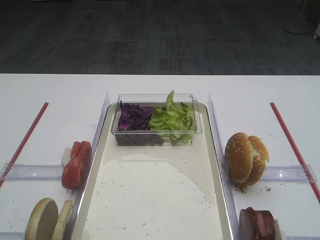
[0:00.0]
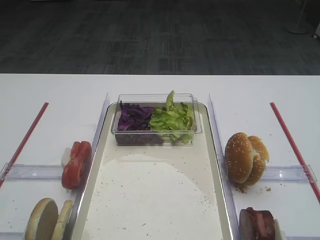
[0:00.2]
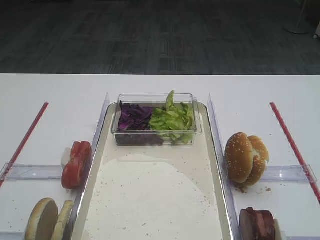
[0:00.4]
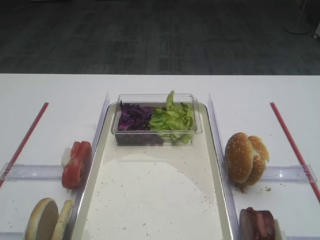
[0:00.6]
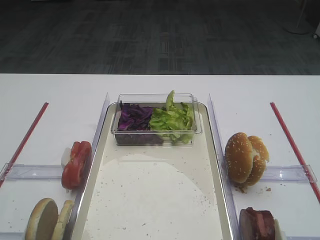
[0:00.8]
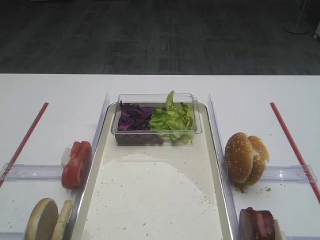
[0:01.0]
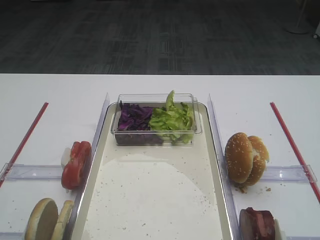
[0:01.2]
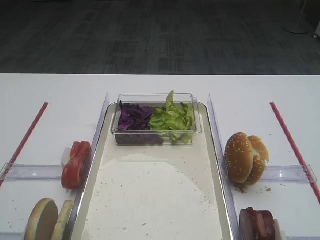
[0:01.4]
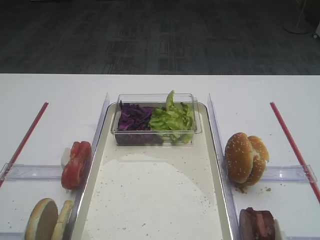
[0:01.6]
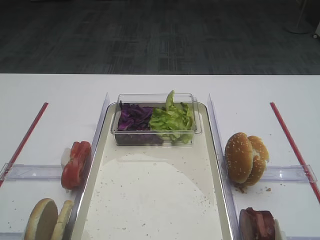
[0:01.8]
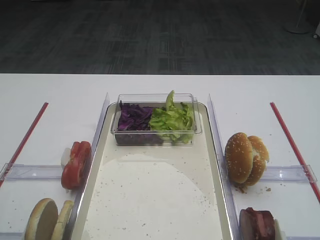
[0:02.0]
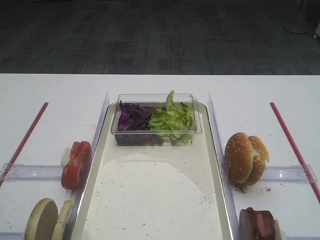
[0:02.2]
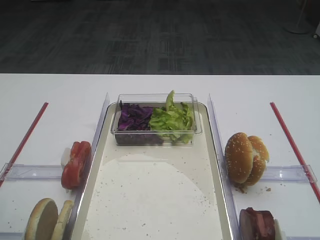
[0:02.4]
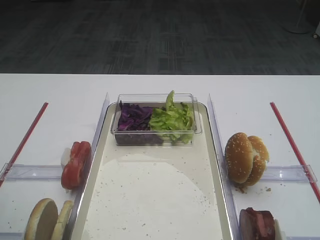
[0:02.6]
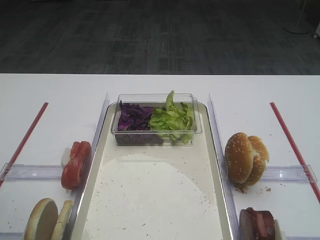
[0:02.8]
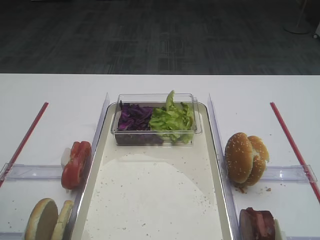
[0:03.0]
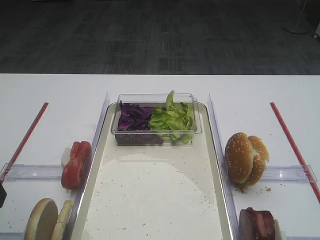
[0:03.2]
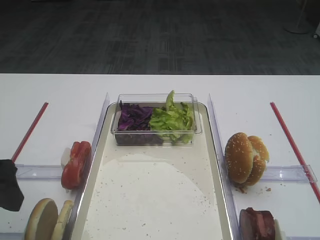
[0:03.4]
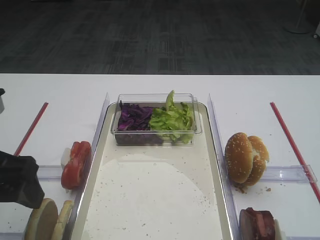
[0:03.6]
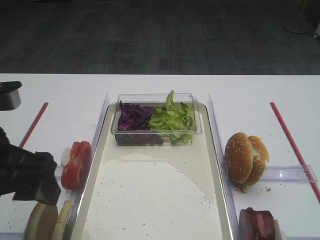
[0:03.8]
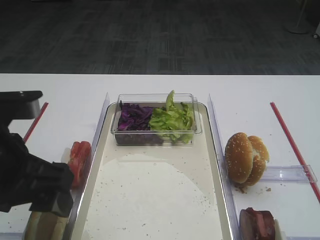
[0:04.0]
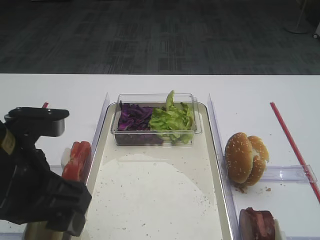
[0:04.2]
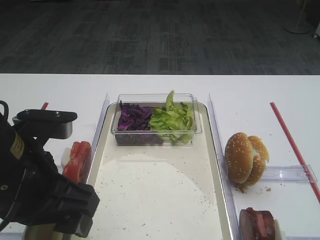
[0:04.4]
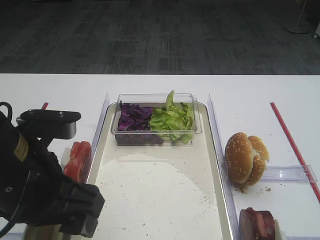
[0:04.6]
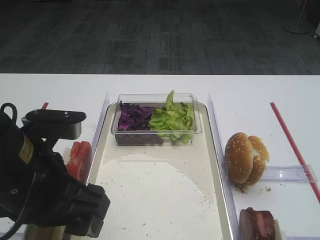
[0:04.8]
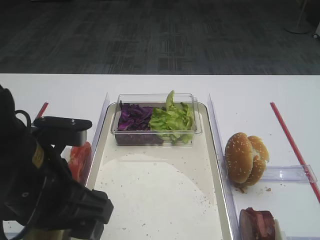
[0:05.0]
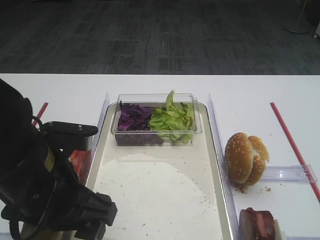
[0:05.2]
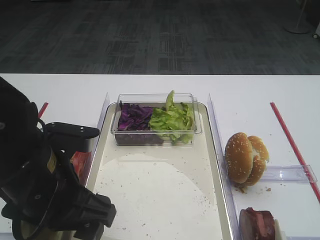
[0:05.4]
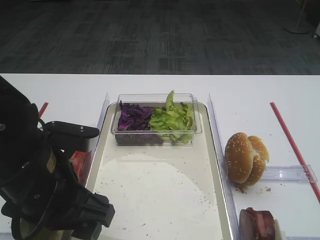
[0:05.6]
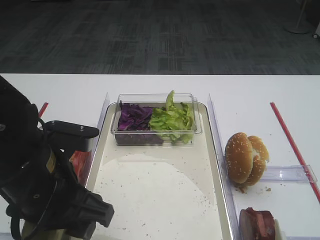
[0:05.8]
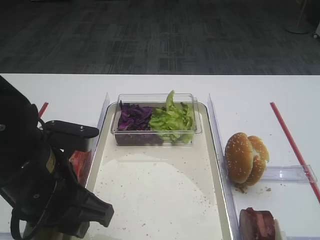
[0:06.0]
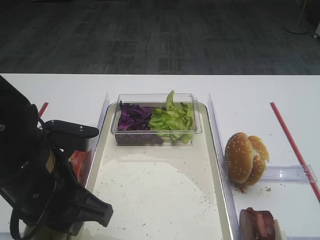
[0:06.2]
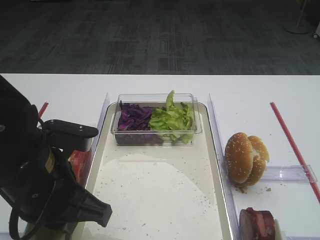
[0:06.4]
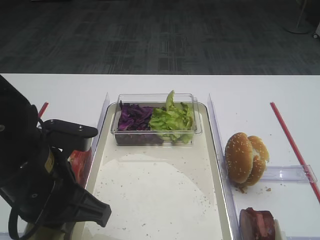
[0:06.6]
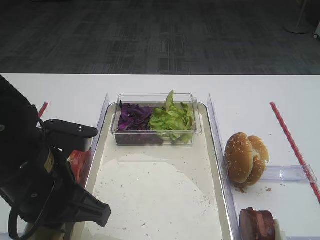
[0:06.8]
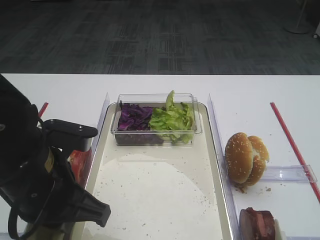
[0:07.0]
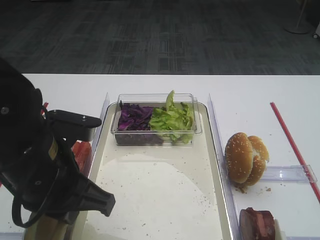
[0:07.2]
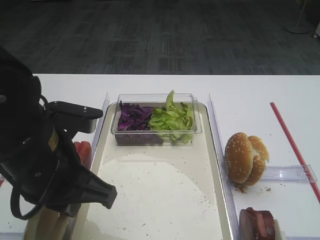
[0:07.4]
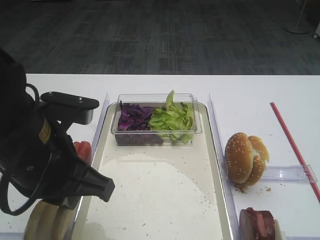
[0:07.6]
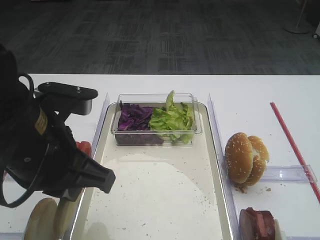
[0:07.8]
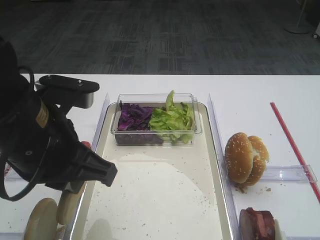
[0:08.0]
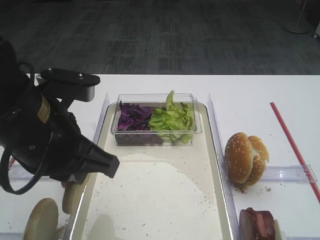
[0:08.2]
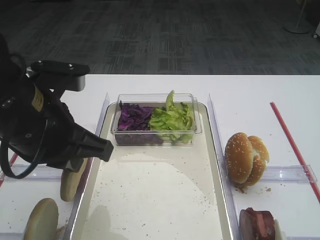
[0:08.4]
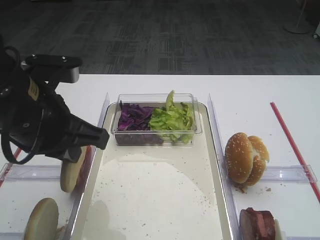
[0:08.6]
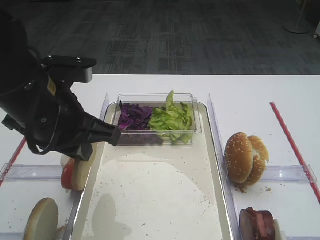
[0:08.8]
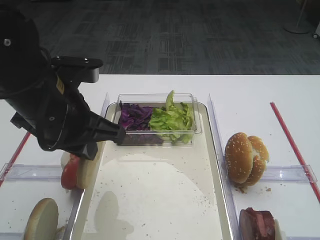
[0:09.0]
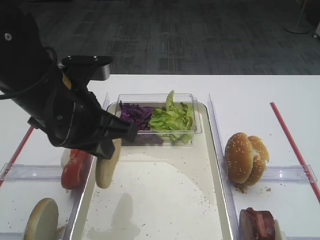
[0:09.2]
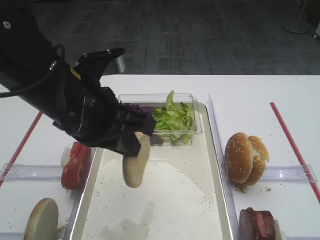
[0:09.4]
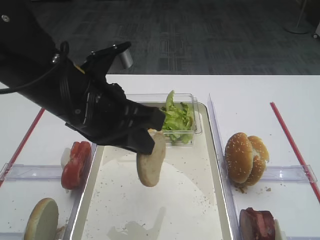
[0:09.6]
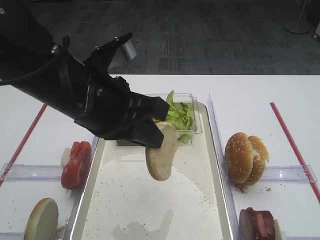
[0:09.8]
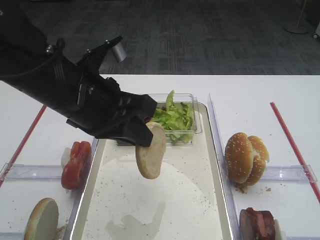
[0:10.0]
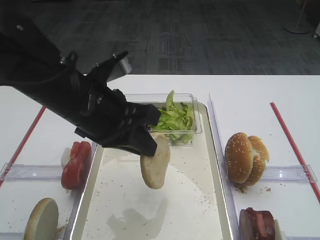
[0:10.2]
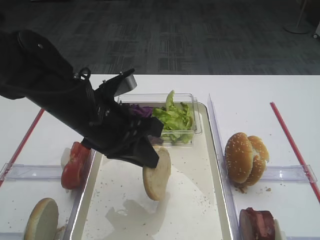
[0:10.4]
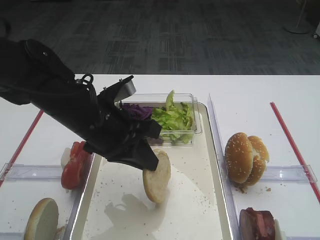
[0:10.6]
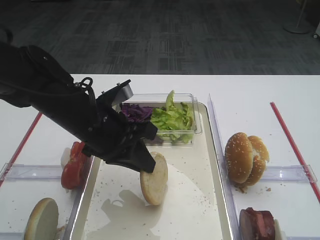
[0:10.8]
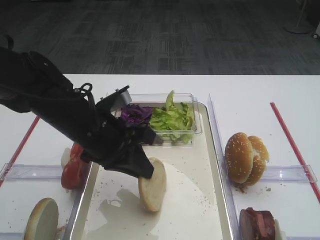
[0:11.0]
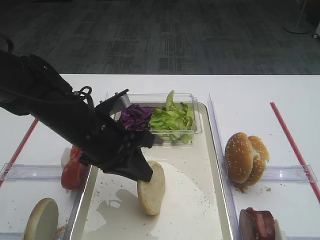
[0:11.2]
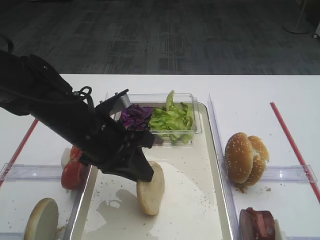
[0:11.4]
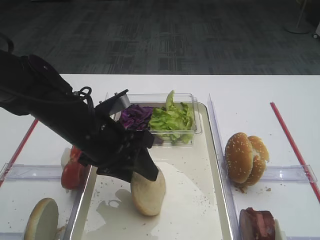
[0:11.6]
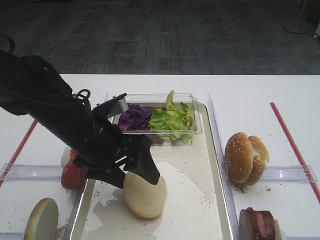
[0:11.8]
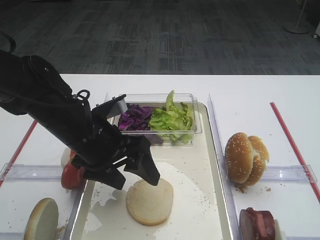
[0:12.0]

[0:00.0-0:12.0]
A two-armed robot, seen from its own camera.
Step, 0:00.0 to 0:07.8: Pick up the bread slice with the left gripper.
0:03.0 to 0:04.4: The left gripper goes some 15 cm to the right.
0:04.4 to 0:06.0: The left gripper closes.
0:06.0 to 0:07.6: The left gripper closes.
0:07.6 to 0:09.0: The left gripper goes some 5 cm forward.
0:09.0 to 0:10.4: The left gripper ends up approximately 5 cm from where it was.
0:10.4 to 0:12.0: The left gripper opens.

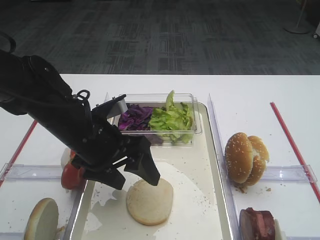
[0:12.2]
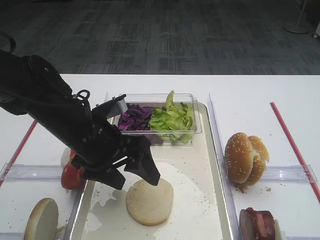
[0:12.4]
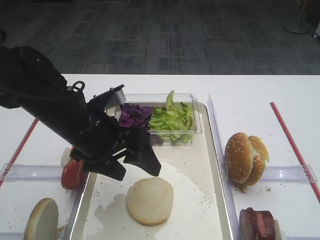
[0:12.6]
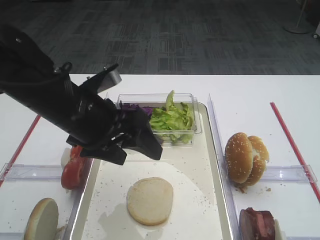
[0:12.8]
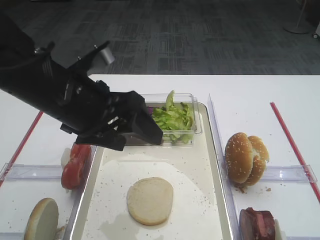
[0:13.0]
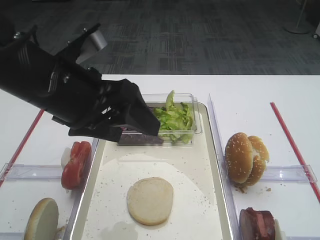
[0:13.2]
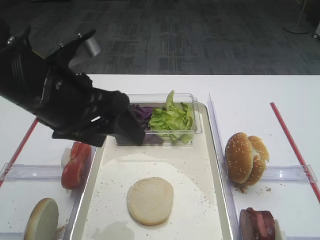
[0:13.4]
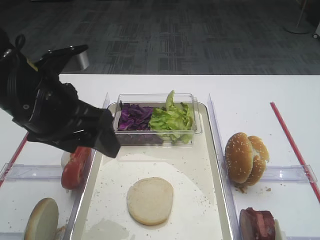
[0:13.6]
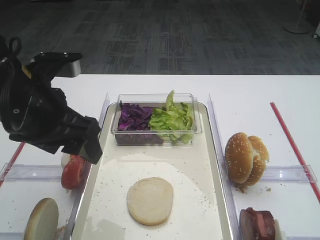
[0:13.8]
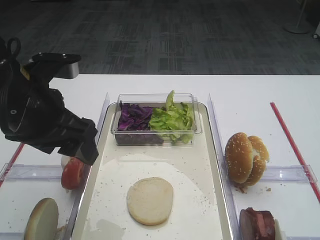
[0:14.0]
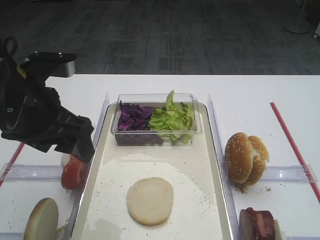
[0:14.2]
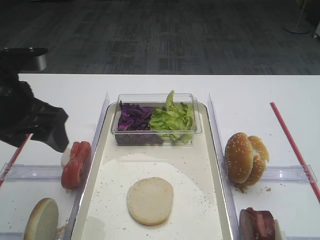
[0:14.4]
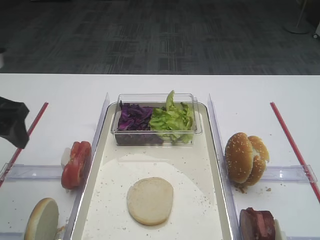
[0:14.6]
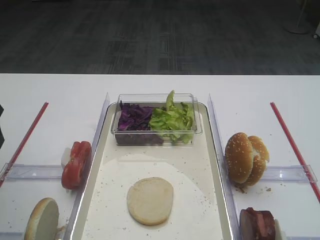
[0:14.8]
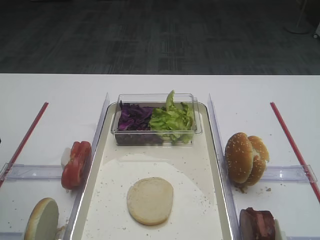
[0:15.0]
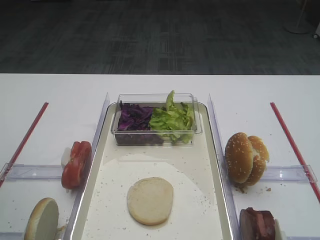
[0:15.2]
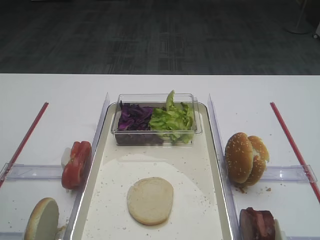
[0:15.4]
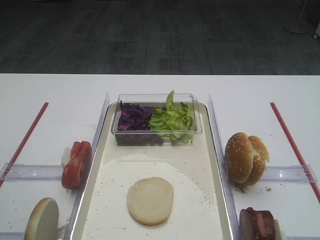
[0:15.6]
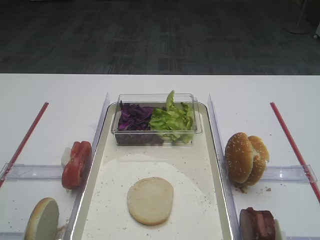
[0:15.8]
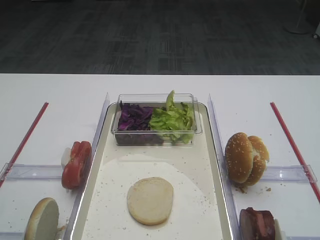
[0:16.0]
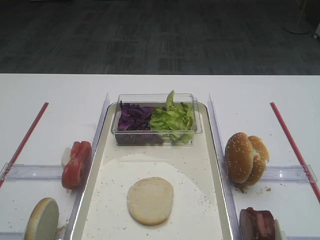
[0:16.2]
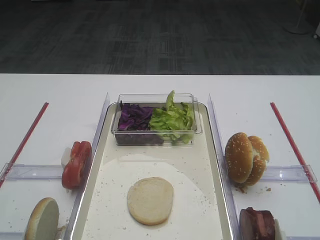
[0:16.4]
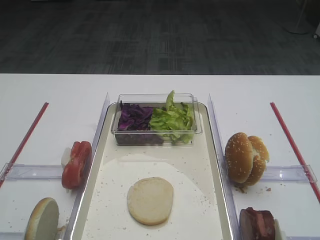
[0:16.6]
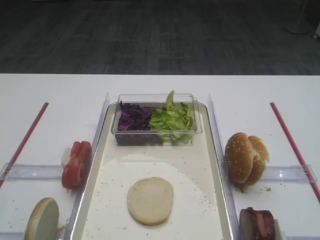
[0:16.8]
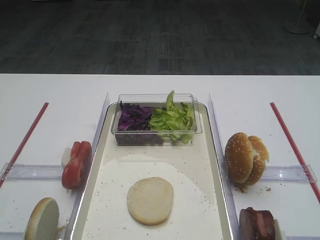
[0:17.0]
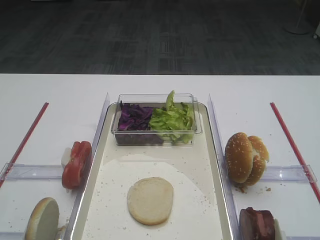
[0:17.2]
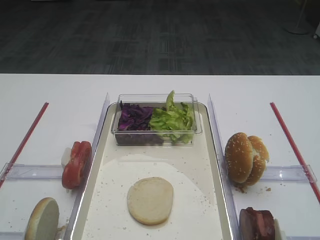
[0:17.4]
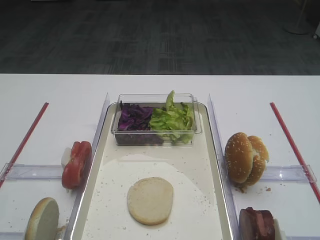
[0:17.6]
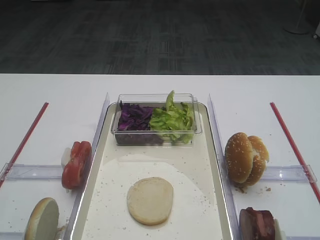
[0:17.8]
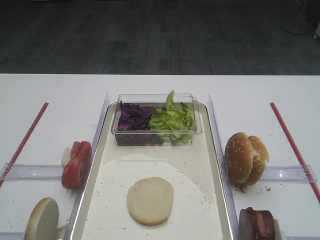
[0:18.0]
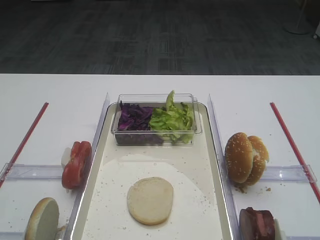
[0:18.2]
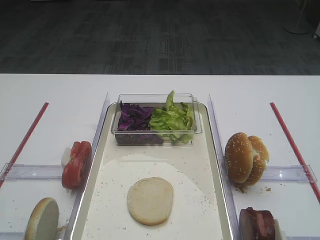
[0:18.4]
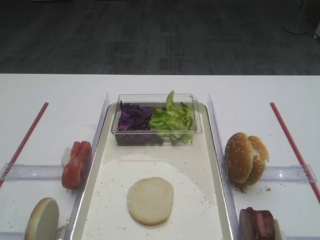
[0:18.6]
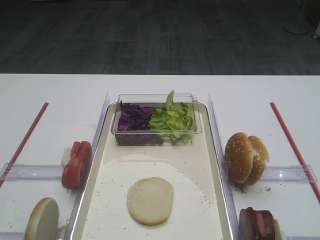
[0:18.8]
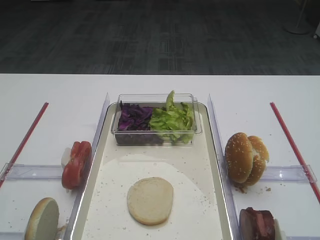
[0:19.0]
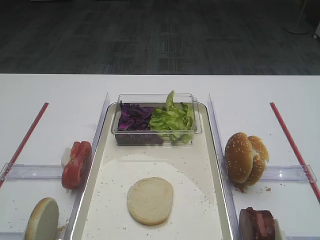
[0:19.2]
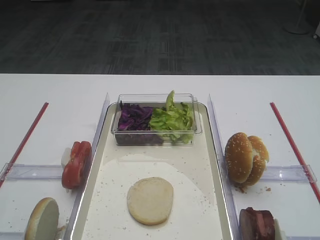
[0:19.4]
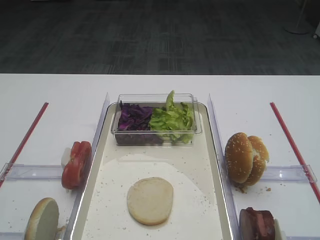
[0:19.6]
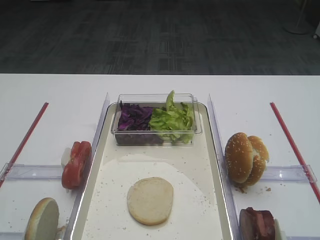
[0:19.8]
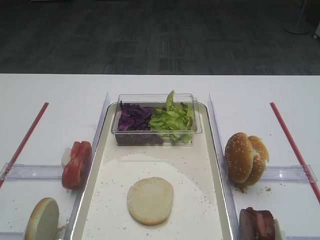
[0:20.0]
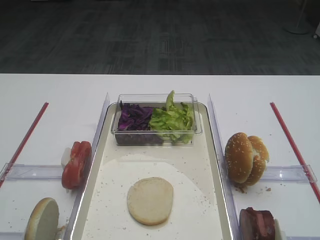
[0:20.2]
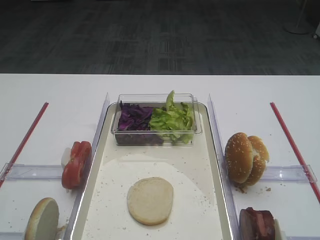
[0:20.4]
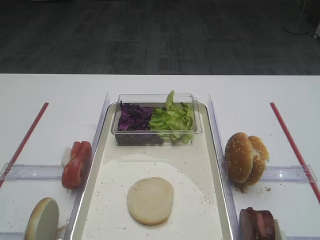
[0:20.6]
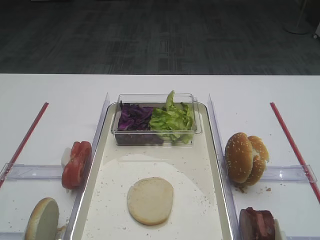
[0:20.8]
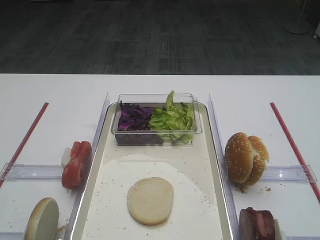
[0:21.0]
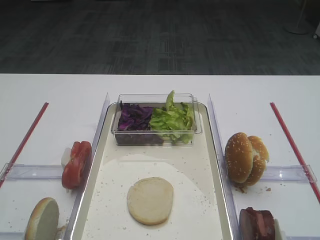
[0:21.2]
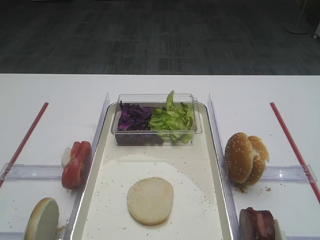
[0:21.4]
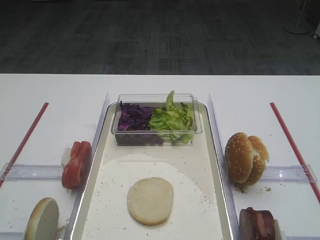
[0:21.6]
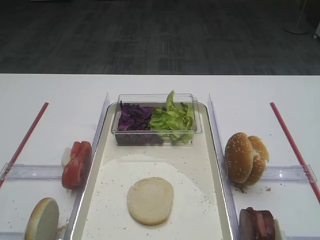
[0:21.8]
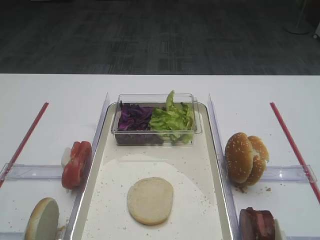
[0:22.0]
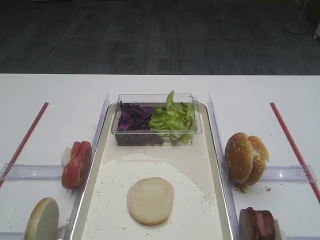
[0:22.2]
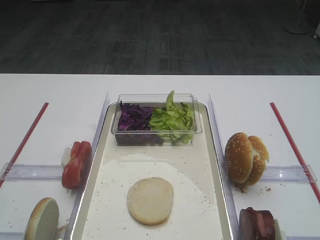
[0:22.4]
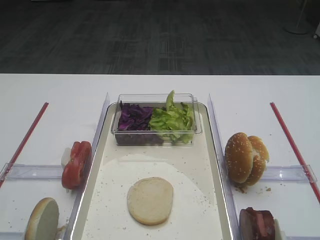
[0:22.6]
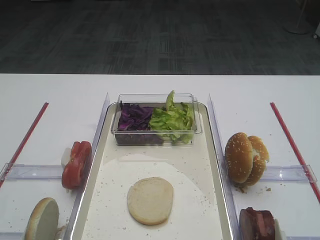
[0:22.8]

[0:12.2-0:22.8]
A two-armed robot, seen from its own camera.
0:12.2 to 0:13.8: The left gripper travels upward and to the left by roughly 10 cm.
0:13.8 to 0:15.2: The left gripper travels to the left by roughly 15 cm.
0:19.8 to 0:22.8: Both grippers stay put.
